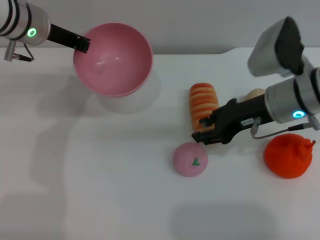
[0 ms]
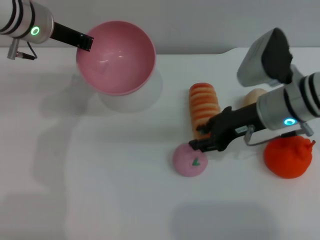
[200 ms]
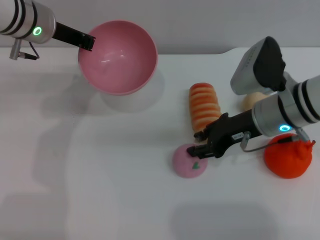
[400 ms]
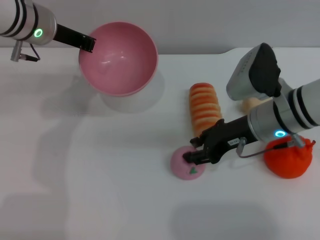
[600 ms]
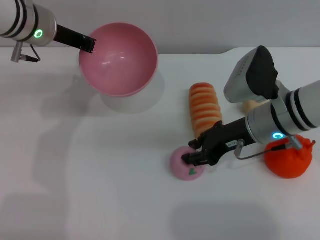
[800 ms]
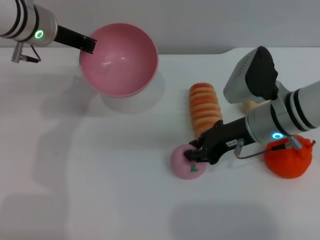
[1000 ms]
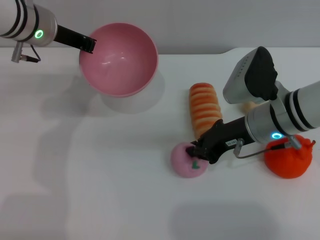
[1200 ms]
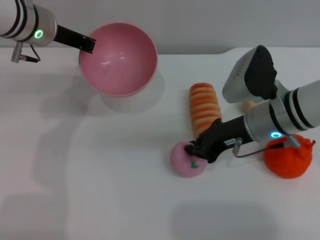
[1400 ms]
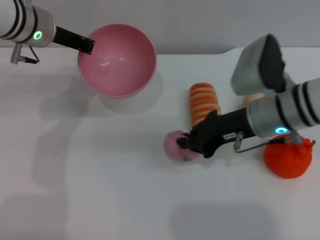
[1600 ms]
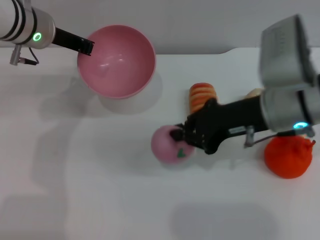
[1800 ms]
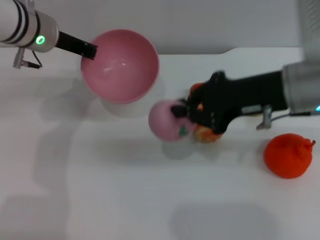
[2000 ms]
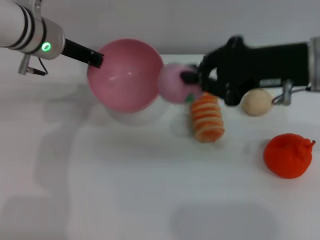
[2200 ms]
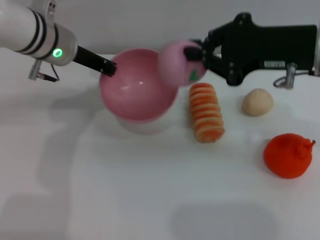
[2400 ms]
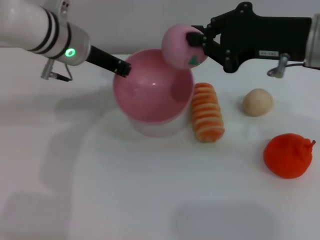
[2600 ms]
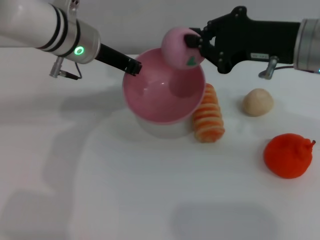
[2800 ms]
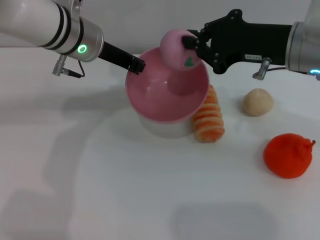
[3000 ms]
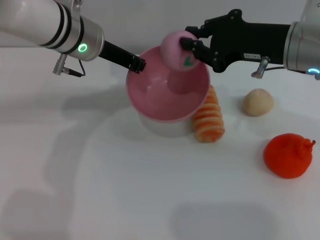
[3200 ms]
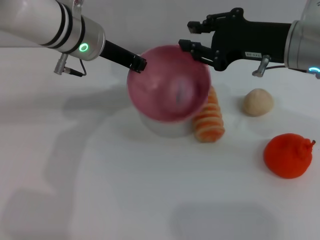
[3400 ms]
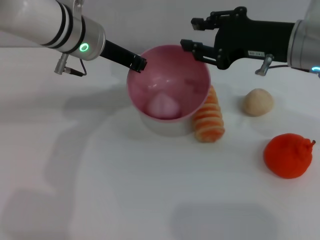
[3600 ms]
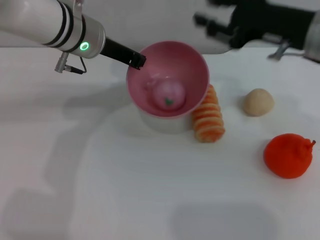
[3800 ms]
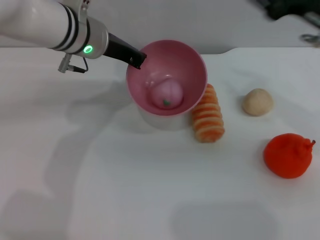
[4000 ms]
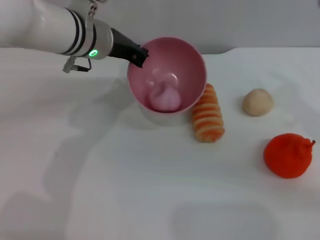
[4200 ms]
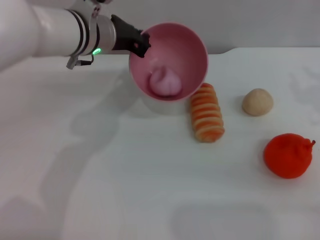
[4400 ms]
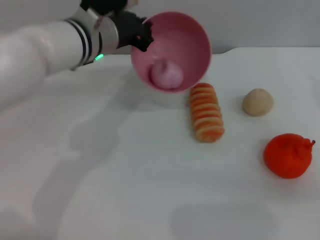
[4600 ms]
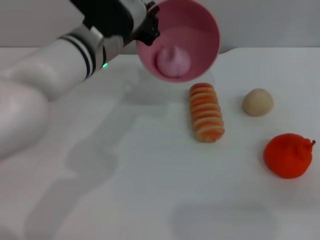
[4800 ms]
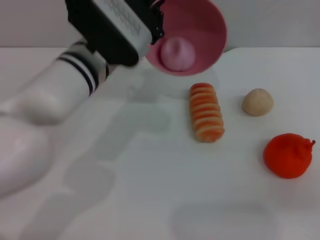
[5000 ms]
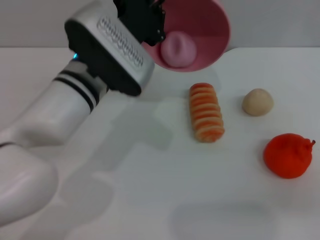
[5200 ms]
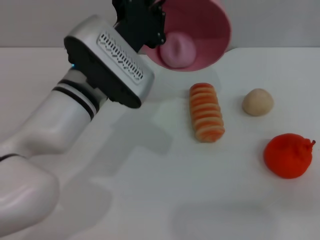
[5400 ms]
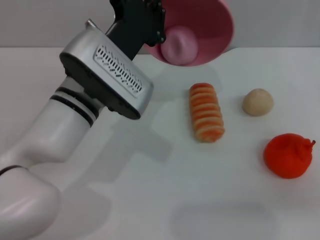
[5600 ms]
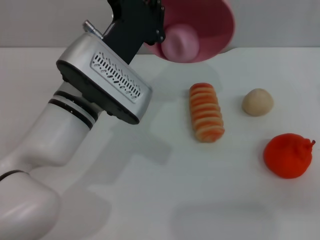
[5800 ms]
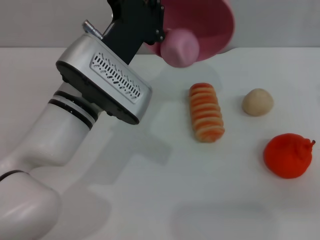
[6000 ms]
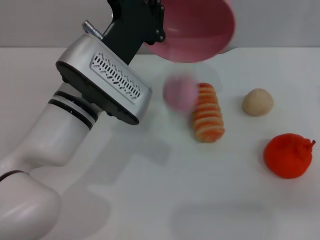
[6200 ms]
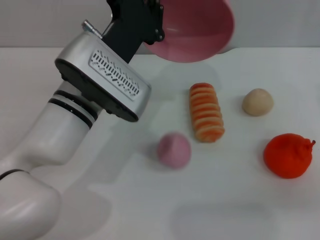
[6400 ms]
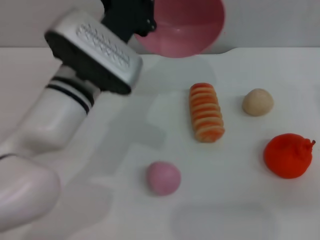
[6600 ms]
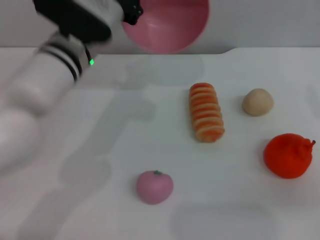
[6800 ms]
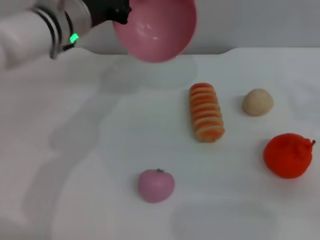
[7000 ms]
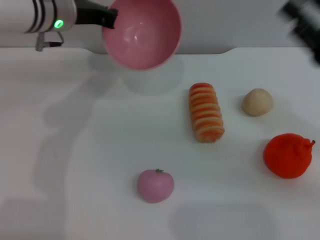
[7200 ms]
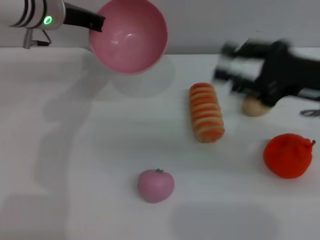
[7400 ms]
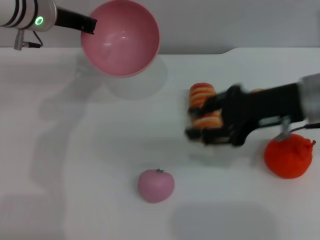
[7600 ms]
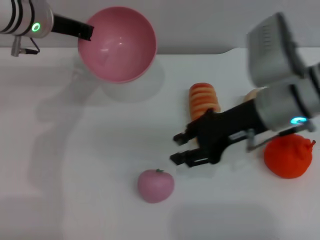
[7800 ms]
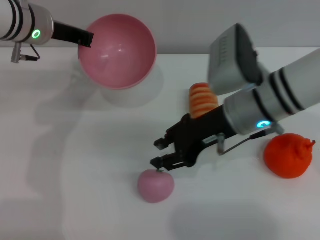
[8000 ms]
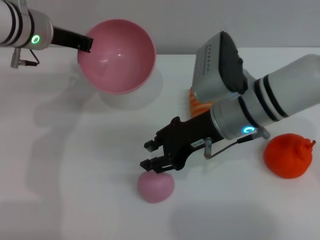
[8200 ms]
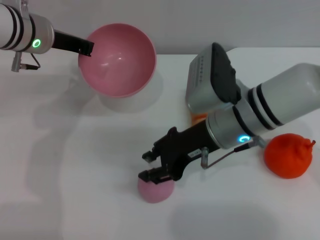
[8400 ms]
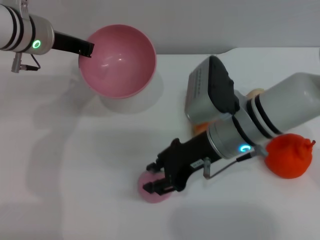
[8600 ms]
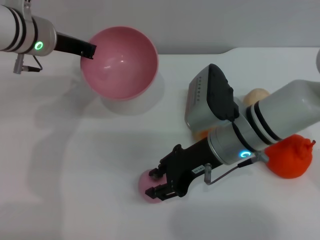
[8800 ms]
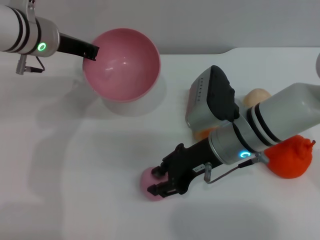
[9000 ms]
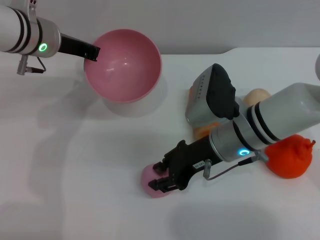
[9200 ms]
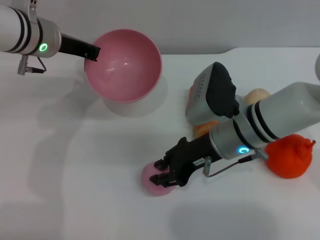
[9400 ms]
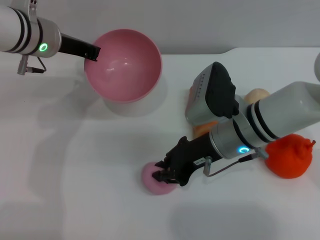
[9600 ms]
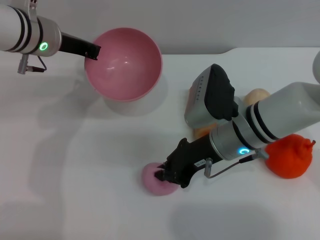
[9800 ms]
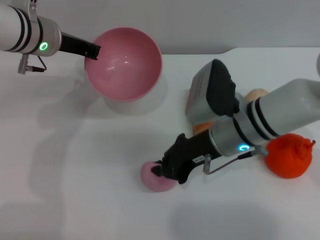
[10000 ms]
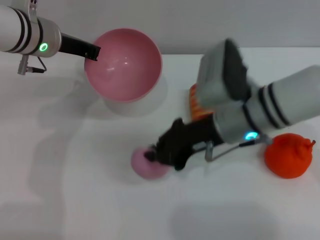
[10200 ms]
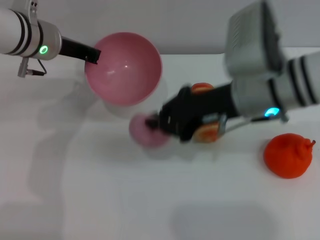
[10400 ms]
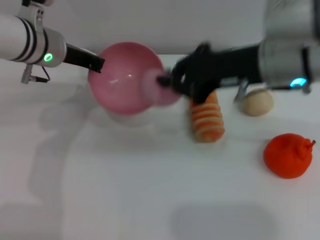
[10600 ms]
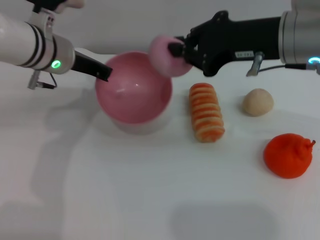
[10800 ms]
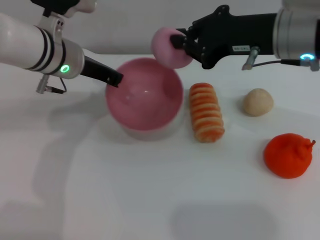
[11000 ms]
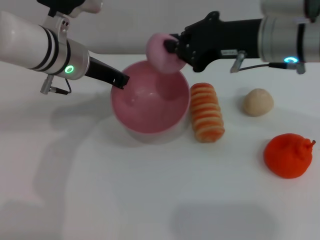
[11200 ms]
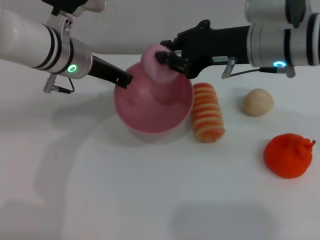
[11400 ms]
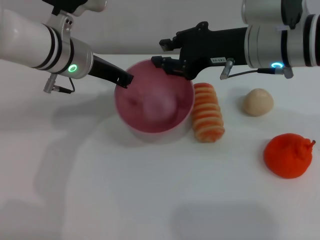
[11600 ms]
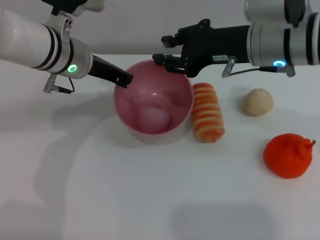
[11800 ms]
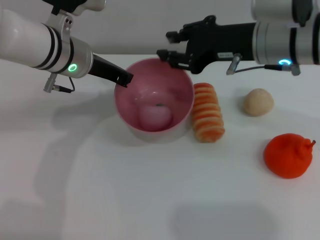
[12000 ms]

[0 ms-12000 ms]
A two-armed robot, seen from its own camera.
Task of the whole recording: put the peach into the pink bowl and pour it out repeatedly.
Step, 0 ms to 2000 ms: Pick up the peach with the right gripper.
Step, 2200 ms to 3600 ms: Place the peach into the bowl.
Step, 3800 ms to 6400 ms: Pour the peach out of bowl.
Step, 6600 ms to 10400 ms: Pick up the peach with the right gripper.
0 ms to 1600 ms: The right gripper closes.
1600 ms to 3000 ms: The right gripper goes roughly 10 cm upward, while the left gripper travels to the right by about 5 cm.
3000 ms to 4400 ms: The right gripper is displaced to the right and backward by about 15 cm, and opens its fingers.
4400 ms to 6000 ms: The left gripper moves backward, about 10 cm.
6000 ms to 7600 ms: The right gripper travels to the left and forward by approximately 15 cm, while the left gripper moves forward, to the left and upward, about 15 cm.
7600 ms to 9000 ms: The right gripper goes about 10 cm to the left and downward.
9000 ms to 10400 ms: The right gripper shifts some 10 cm upward, and closes up.
10400 ms to 12000 ms: The right gripper moves approximately 5 cm, and opens its fingers.

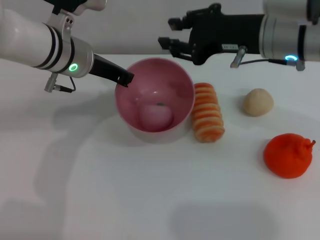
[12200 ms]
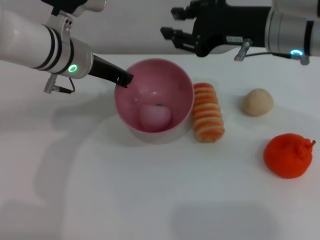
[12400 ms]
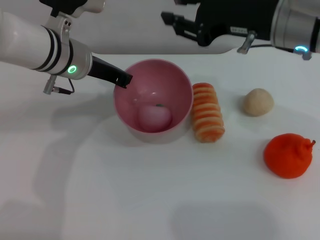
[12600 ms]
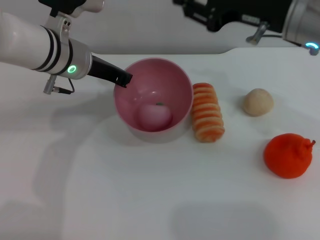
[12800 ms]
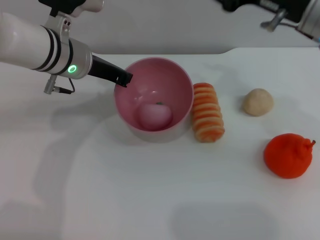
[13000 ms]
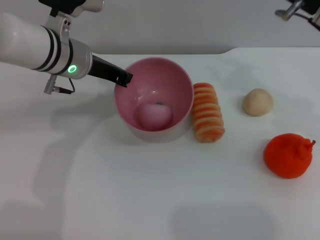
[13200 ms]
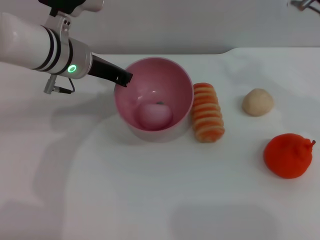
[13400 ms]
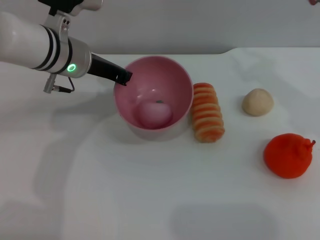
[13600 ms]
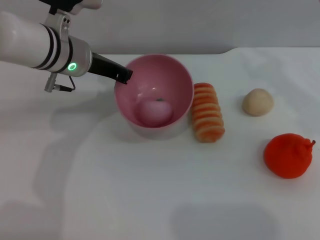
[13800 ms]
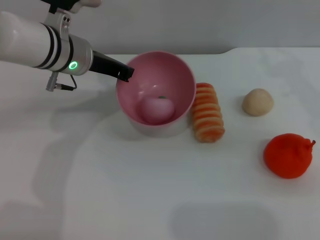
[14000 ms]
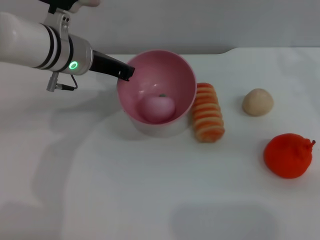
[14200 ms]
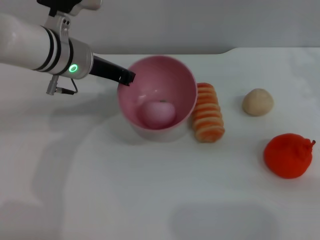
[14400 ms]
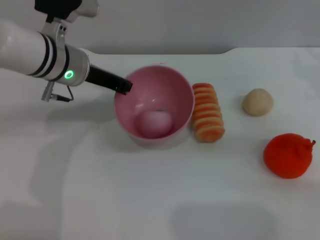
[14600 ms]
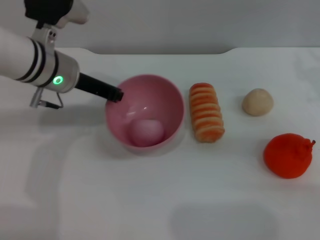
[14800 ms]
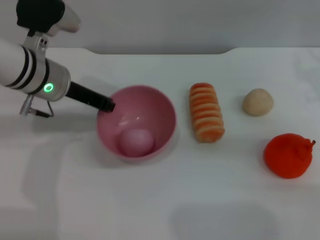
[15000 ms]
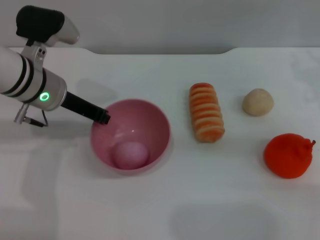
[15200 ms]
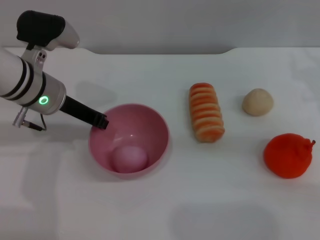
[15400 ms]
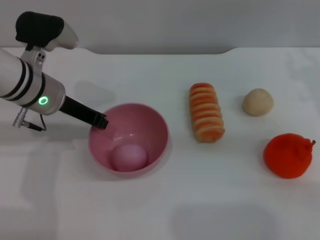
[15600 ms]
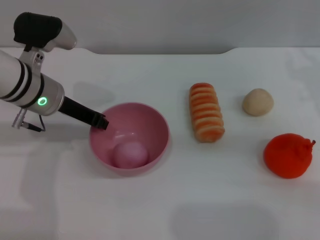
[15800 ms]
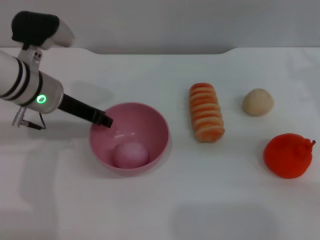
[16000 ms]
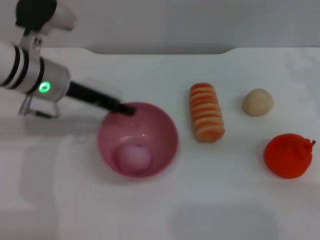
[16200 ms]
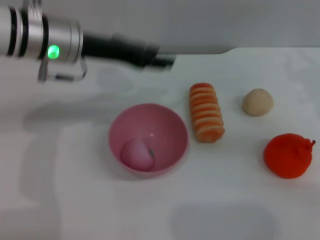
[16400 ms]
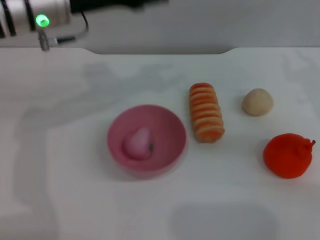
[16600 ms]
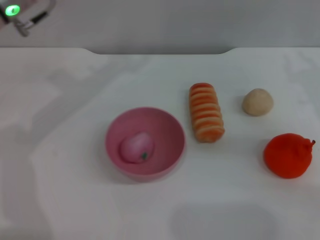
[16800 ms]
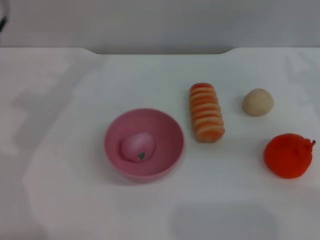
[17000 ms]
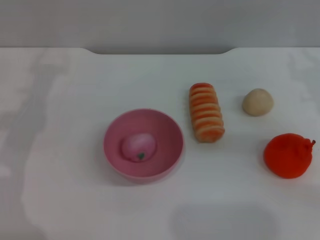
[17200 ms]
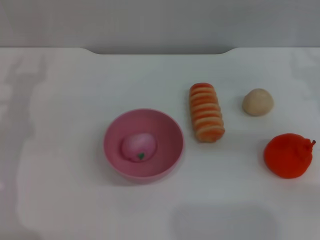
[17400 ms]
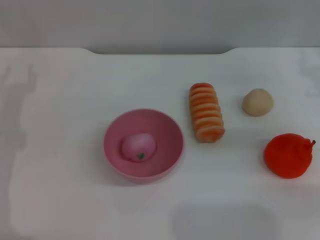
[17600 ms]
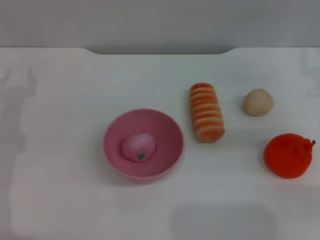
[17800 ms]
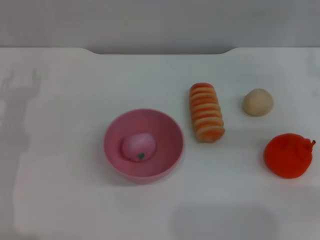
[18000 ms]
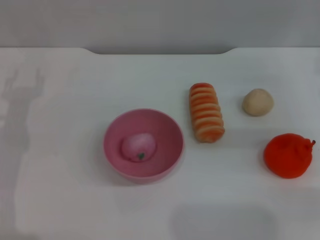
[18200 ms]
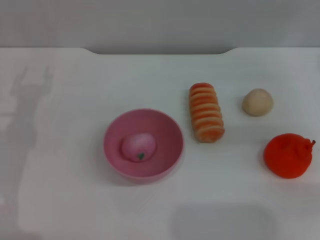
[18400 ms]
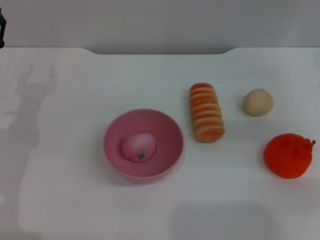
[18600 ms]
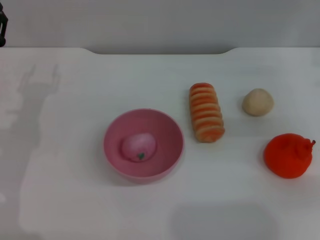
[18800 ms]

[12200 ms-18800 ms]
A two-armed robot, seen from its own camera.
Task of the whole recording: put the peach into the pink bowl and pour it out repeatedly.
Step, 12400 ms to 16200 ms: Place the bowl on the table.
12200 ms to 13800 ms: The right gripper travels to the right by about 10 cm.
13800 ms to 15400 ms: The right gripper moves downward, about 5 cm; the left gripper shifts by some 5 cm.
15400 ms to 17200 ms: The left gripper travels to the left by approximately 10 cm, and opens up.

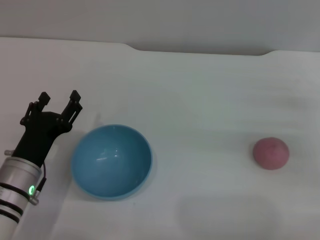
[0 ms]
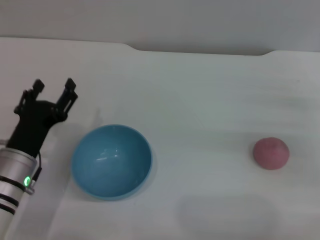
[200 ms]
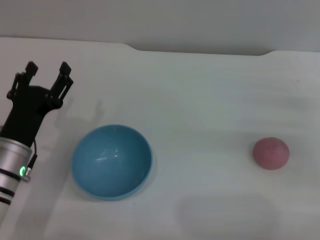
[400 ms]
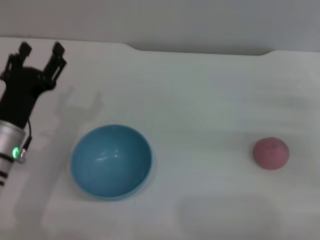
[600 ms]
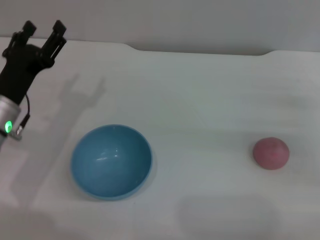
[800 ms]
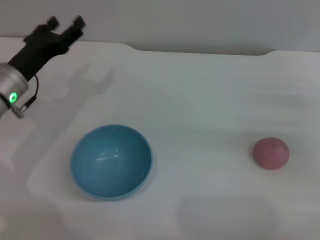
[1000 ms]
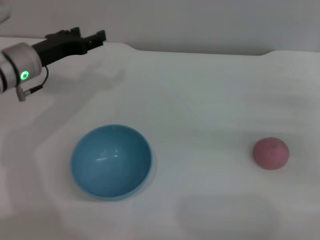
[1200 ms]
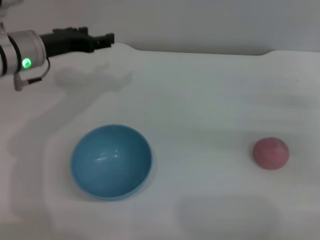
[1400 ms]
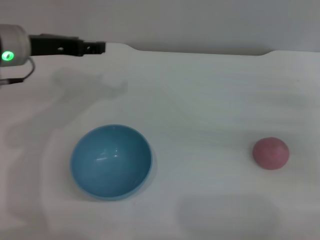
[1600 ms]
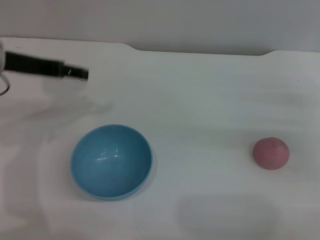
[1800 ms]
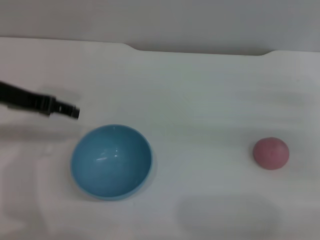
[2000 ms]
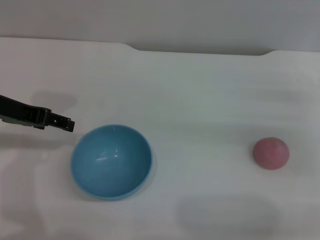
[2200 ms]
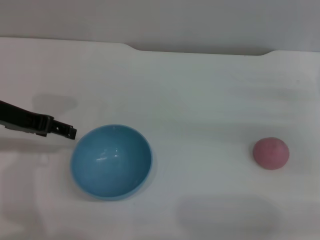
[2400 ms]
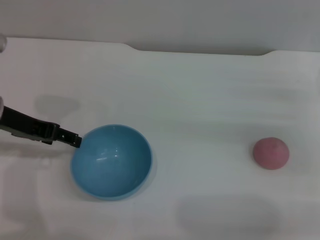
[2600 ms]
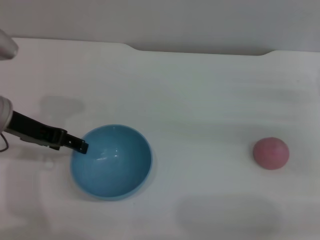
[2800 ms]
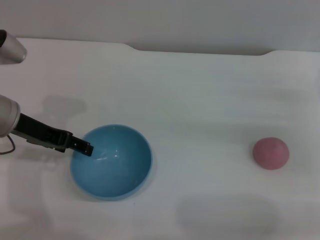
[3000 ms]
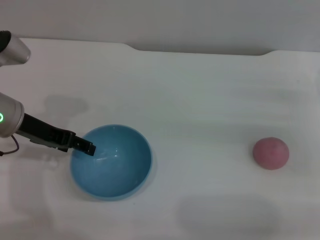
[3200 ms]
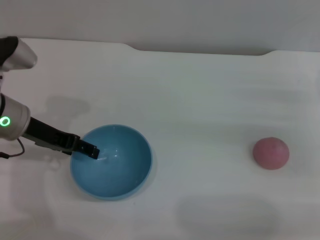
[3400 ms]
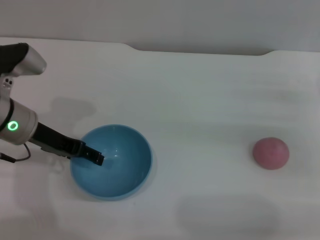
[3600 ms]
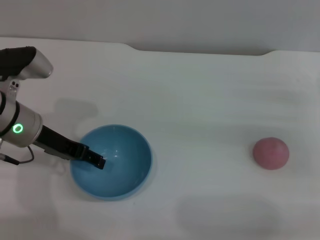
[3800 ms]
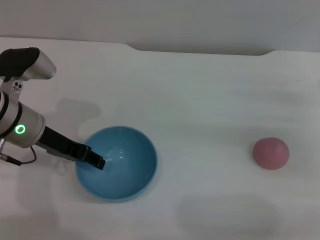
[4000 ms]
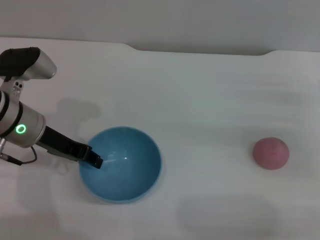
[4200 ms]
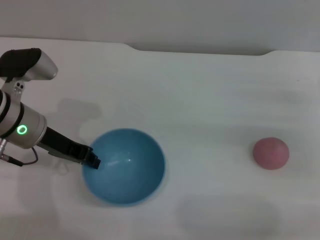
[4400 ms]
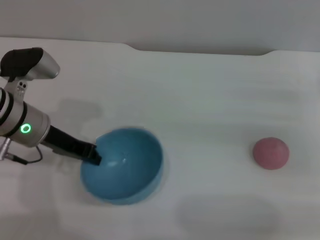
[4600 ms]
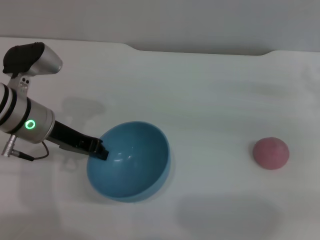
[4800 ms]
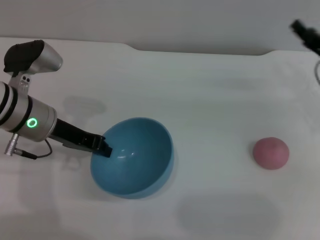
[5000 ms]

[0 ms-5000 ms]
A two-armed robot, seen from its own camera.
Task of the whole recording: put the peach into the blue bowl and pour it out repeatedly.
0 ms to 1600 ms: The left gripper heads upward and forward, covering roughly 20 cm.
1600 ms to 3400 ms: The left gripper moves approximately 5 cm.
3400 ms to 5000 ms: The right gripper shifts by approximately 5 cm. Meanwhile the left gripper closes its fingers.
